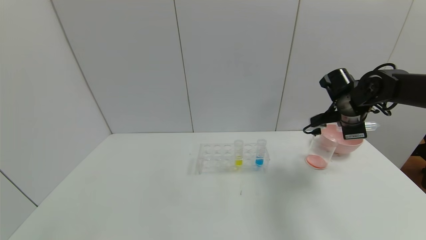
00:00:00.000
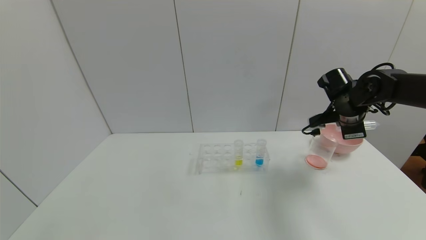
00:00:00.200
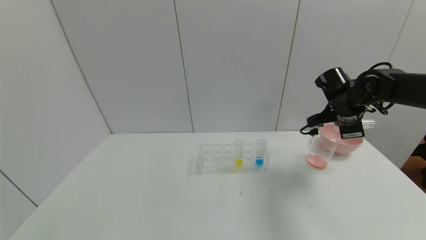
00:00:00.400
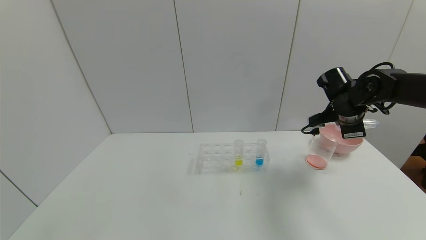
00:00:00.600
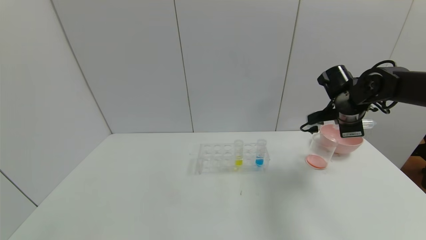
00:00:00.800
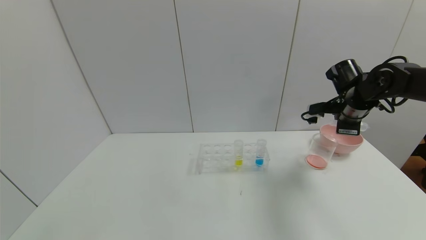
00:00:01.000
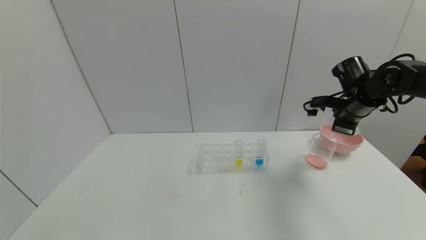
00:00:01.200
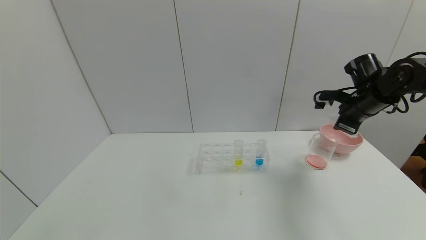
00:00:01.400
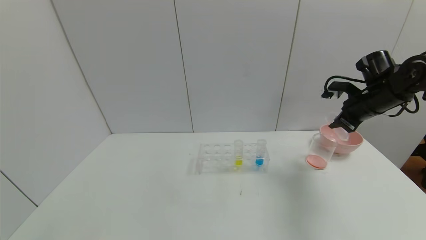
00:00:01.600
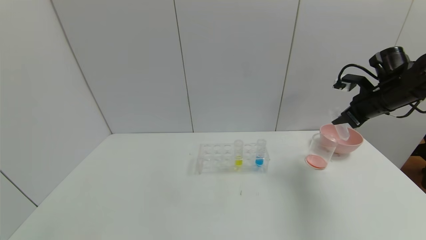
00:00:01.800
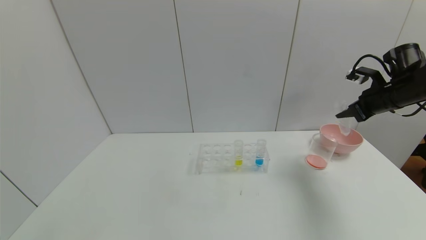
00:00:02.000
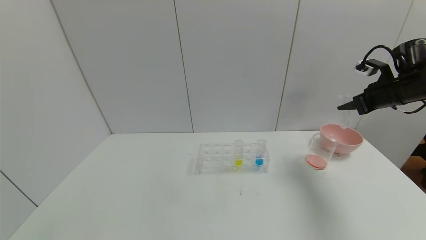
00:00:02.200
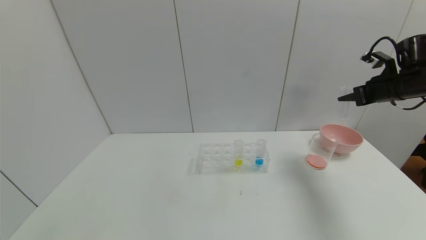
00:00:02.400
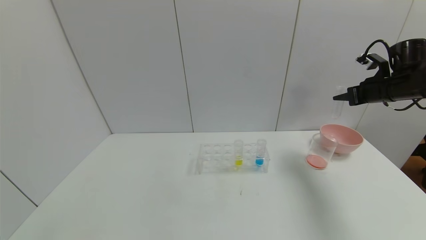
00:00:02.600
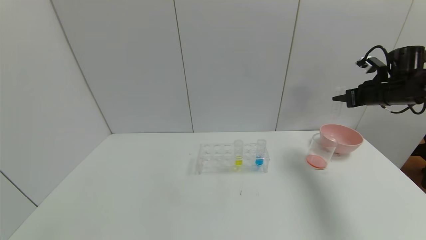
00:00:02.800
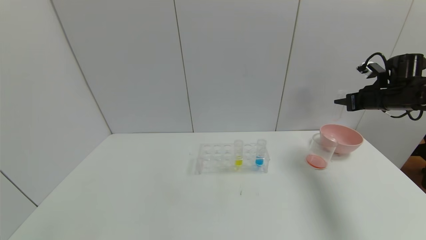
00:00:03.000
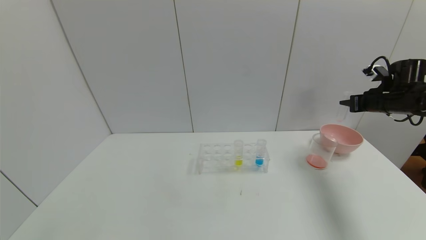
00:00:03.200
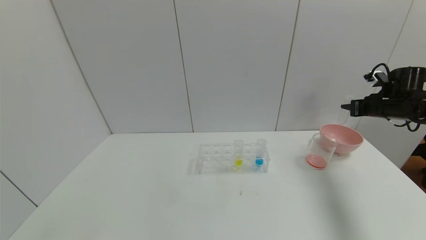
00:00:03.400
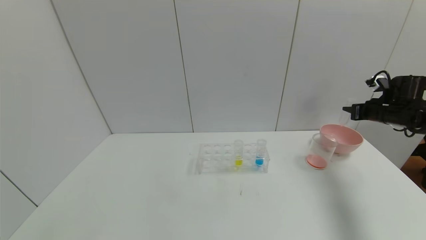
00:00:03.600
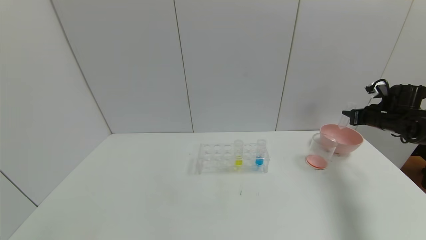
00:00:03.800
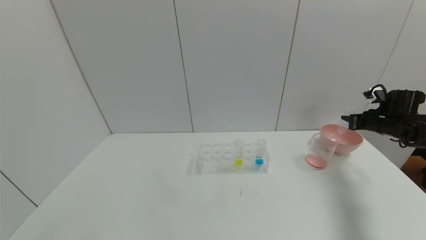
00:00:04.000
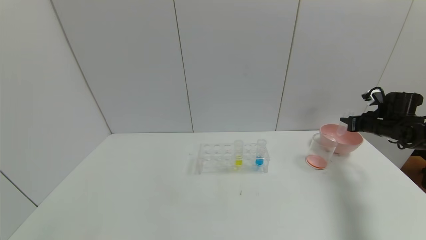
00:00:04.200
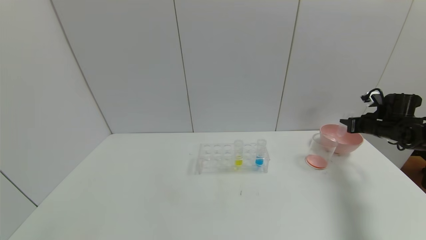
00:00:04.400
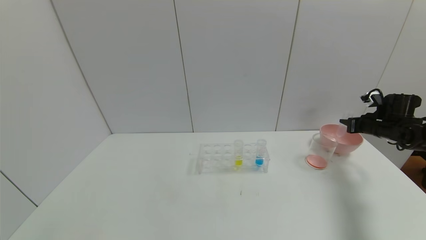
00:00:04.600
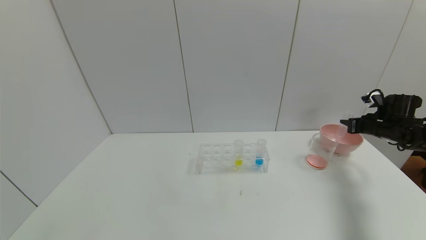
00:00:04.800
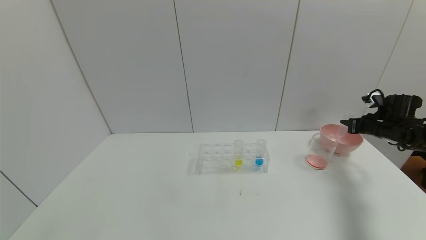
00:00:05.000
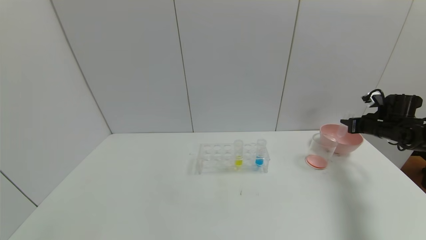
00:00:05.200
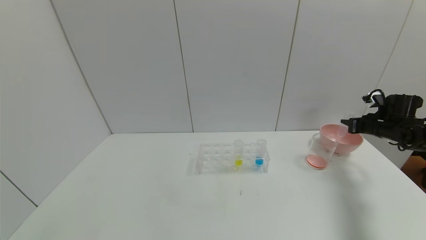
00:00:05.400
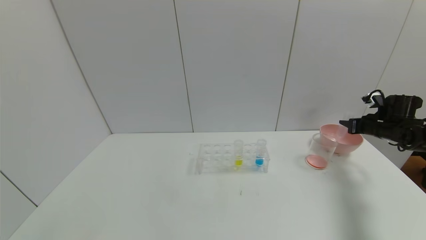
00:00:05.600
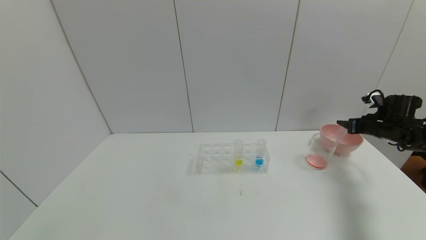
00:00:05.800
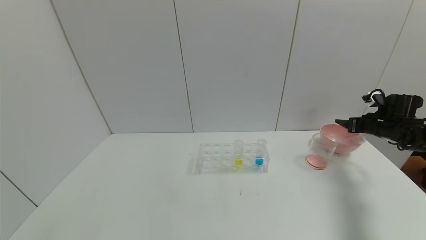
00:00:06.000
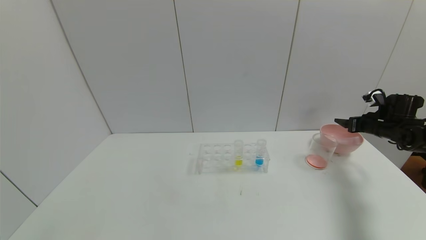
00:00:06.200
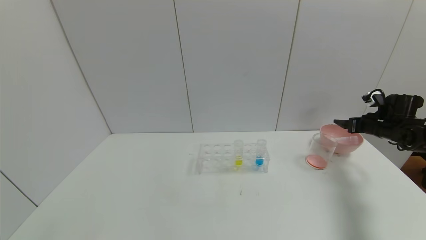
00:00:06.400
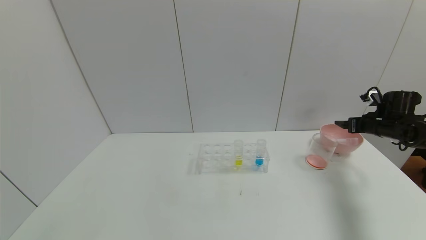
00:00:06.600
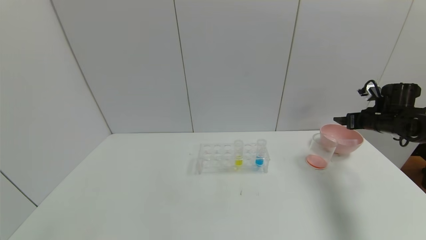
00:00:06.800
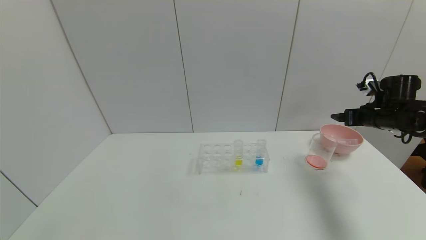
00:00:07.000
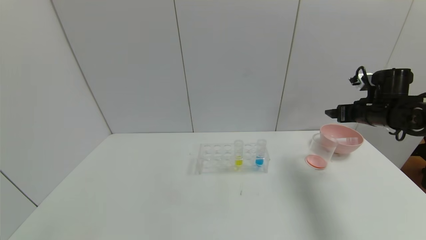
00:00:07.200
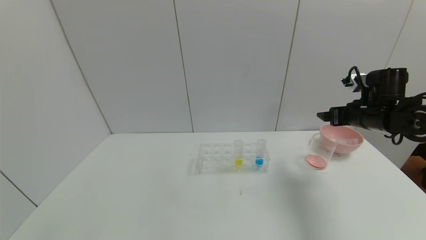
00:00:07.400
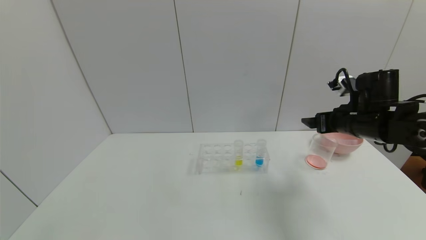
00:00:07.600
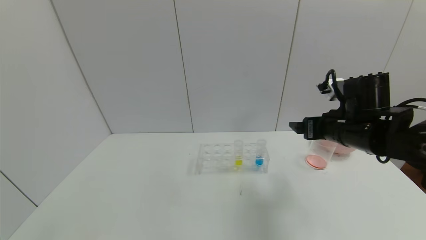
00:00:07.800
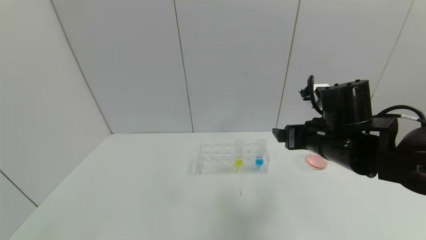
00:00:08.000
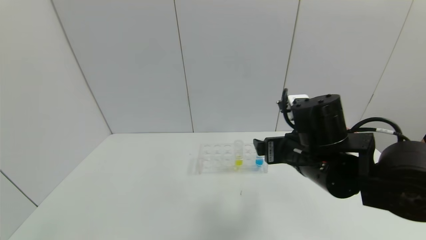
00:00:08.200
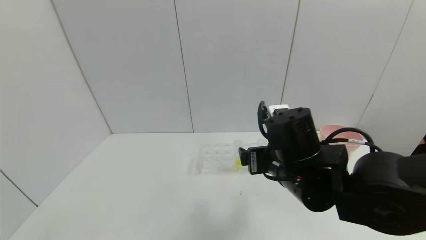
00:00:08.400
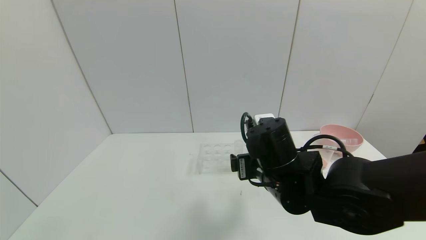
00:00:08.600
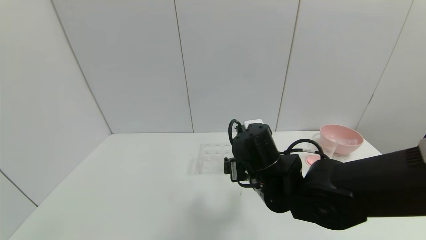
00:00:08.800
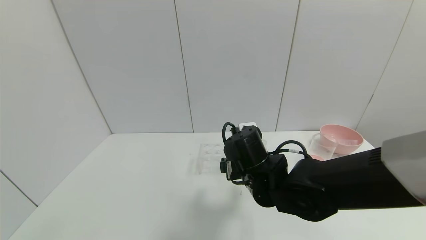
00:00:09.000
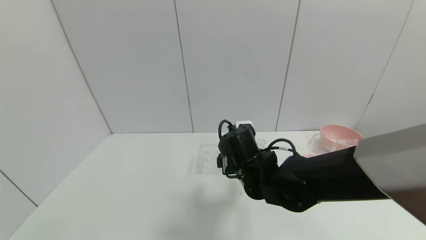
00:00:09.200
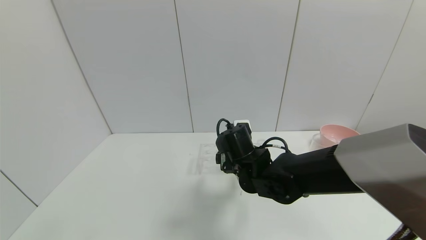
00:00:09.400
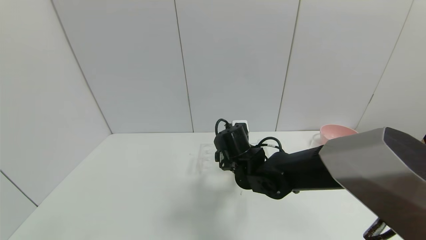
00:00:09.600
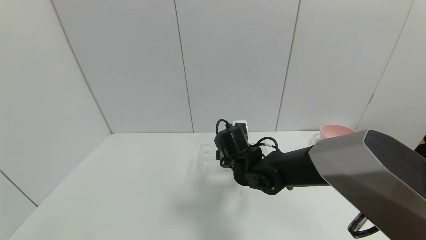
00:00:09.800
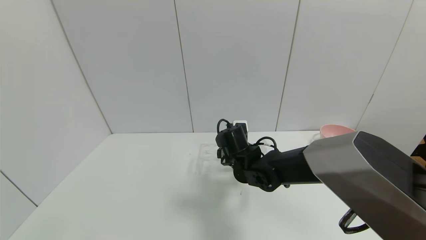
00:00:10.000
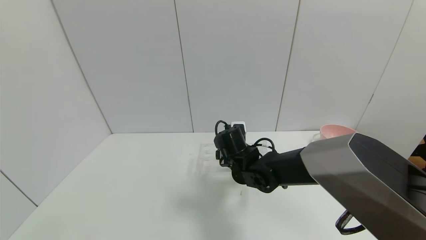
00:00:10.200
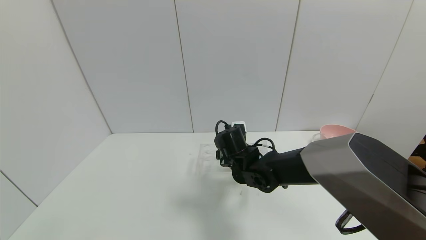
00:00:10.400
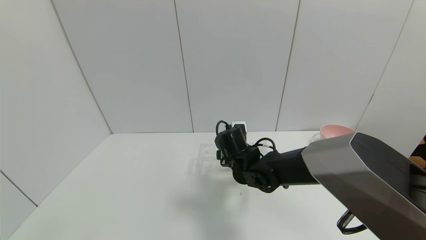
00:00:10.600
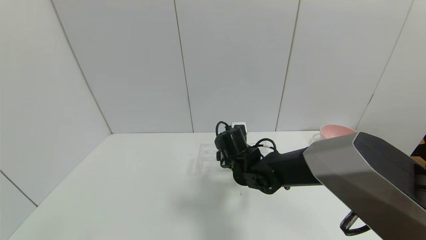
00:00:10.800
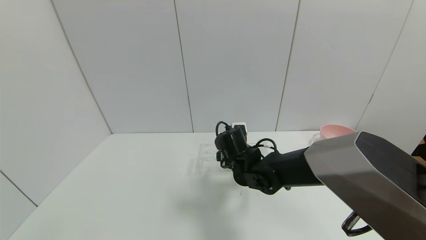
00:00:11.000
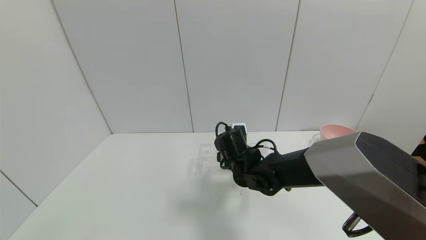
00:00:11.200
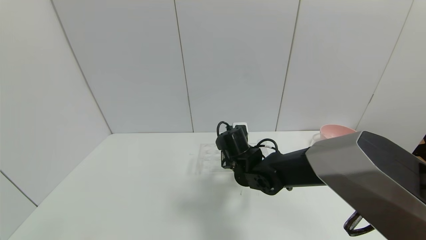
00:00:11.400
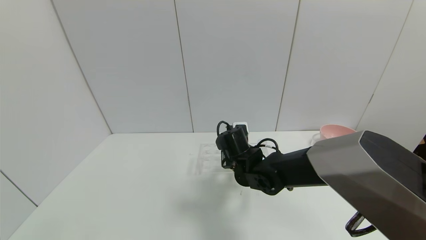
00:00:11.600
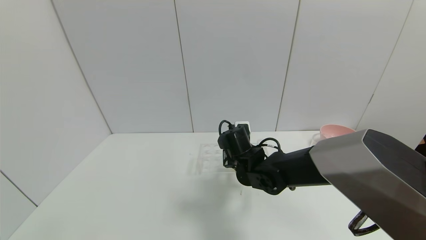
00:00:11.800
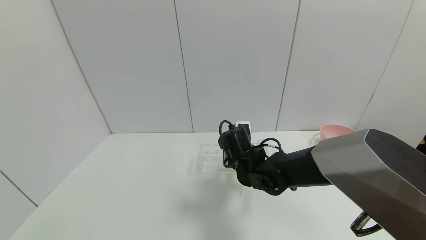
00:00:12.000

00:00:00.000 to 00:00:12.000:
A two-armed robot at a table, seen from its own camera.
Task of the whole recording: pick up the test tube with yellow pigment and the test tube with red pigment by grippers and pour them into the beaker.
Step, 00:00:00.000 to 00:00:06.400: Place the test tube into the bowl with the right gripper.
00:00:00.000 to 00:00:01.600: The right gripper changes place by roughly 5 cm.
00:00:01.600 to 00:00:03.000: The right gripper heads to the right, covering approximately 5 cm.
00:00:03.000 to 00:00:04.400: The right gripper goes roughly 10 cm downward.
00:00:06.000 to 00:00:07.600: The right gripper goes approximately 25 cm to the left, backward and upward.
00:00:07.600 to 00:00:09.000: The right gripper travels to the left by roughly 20 cm.
00:00:09.000 to 00:00:10.400: The right gripper moves forward, about 10 cm.
00:00:10.400 to 00:00:12.000: The right gripper closes its fingers.

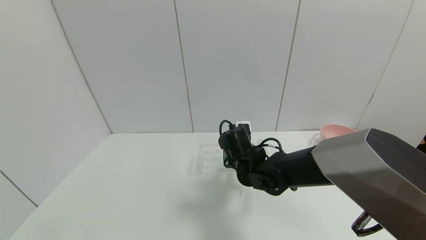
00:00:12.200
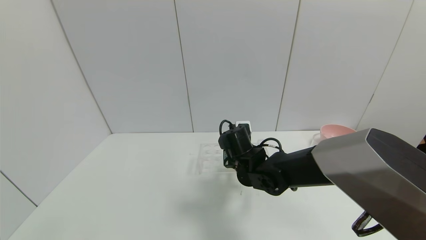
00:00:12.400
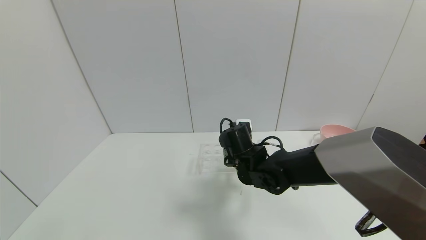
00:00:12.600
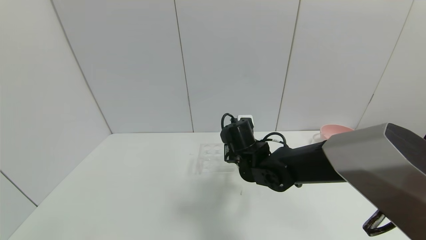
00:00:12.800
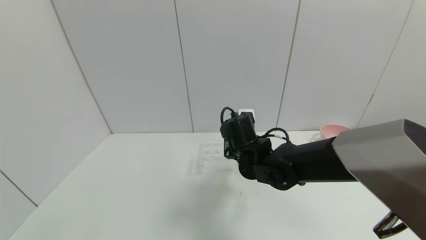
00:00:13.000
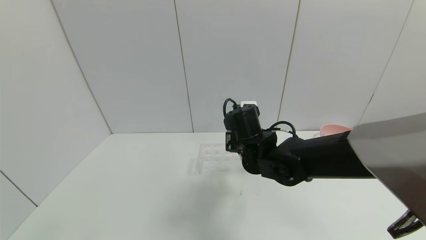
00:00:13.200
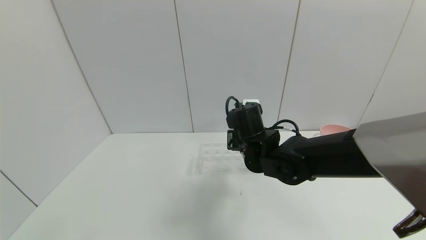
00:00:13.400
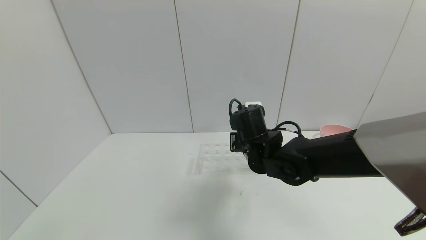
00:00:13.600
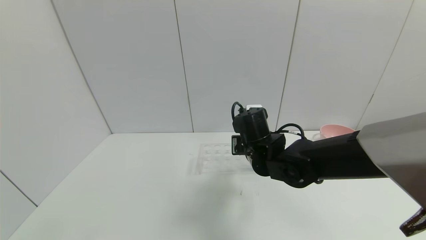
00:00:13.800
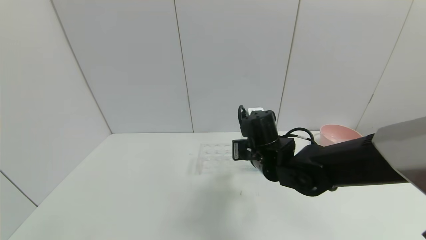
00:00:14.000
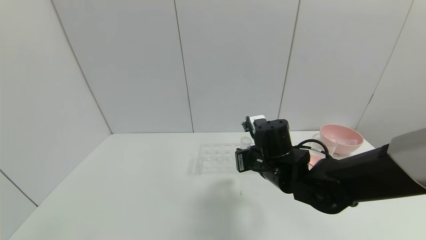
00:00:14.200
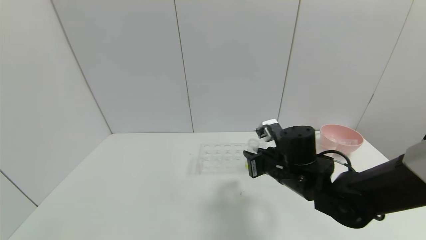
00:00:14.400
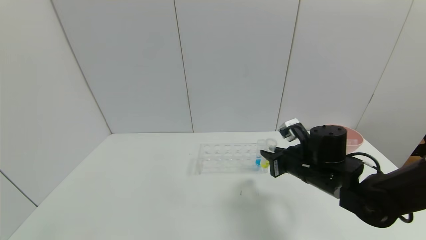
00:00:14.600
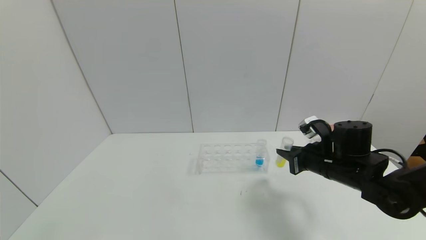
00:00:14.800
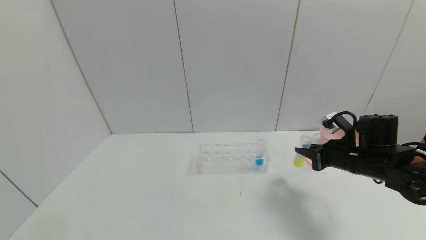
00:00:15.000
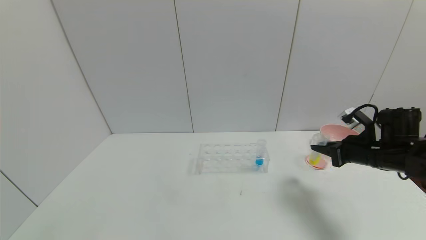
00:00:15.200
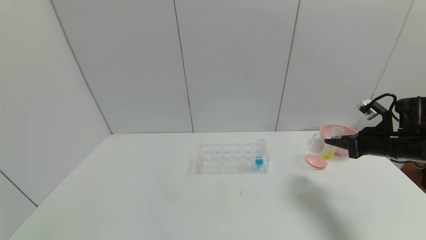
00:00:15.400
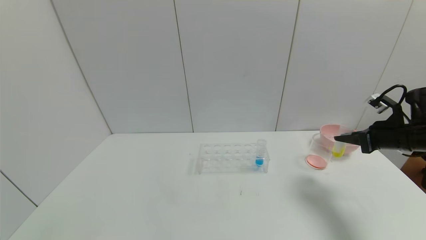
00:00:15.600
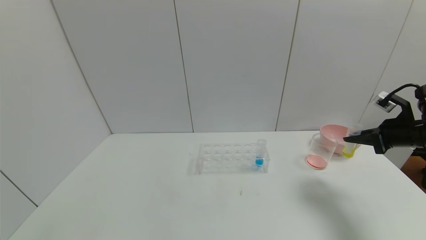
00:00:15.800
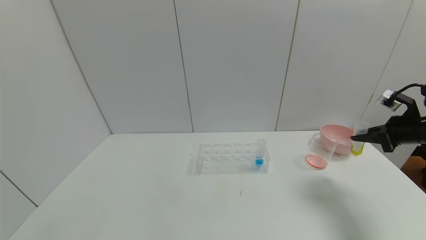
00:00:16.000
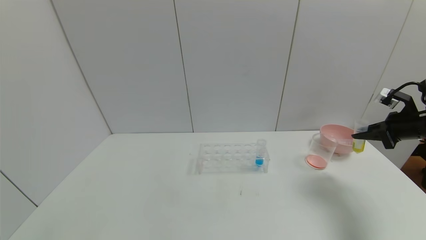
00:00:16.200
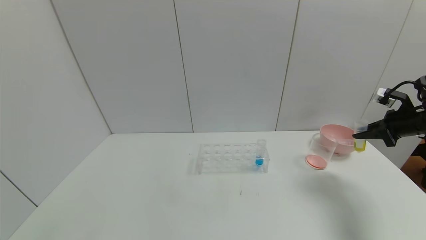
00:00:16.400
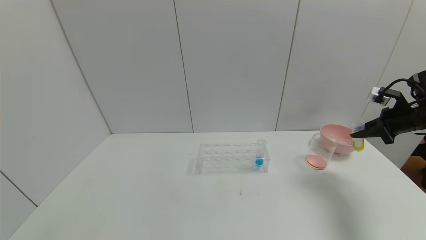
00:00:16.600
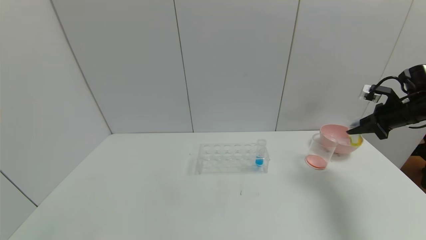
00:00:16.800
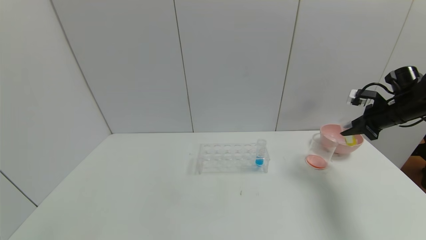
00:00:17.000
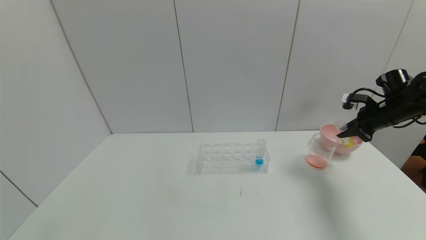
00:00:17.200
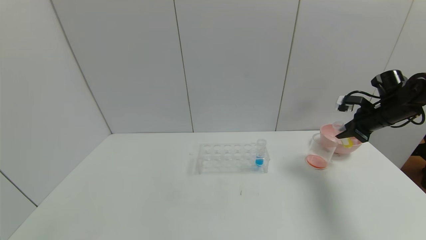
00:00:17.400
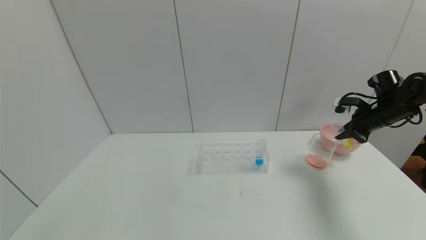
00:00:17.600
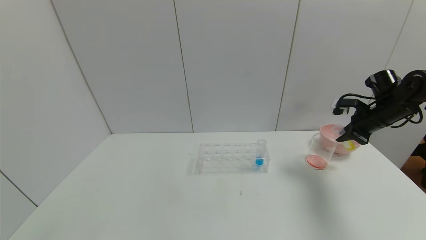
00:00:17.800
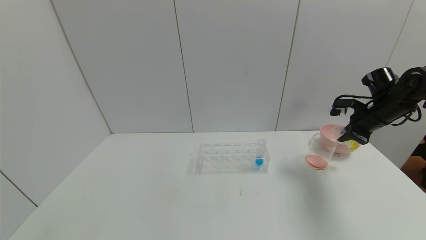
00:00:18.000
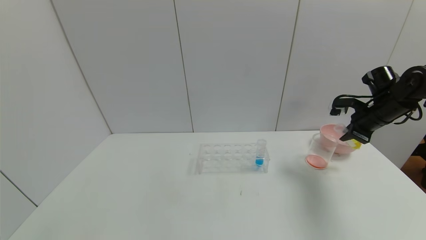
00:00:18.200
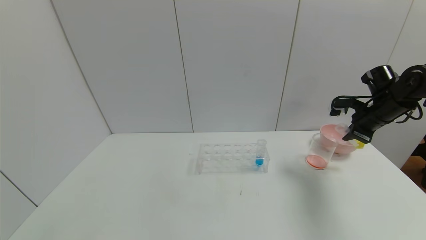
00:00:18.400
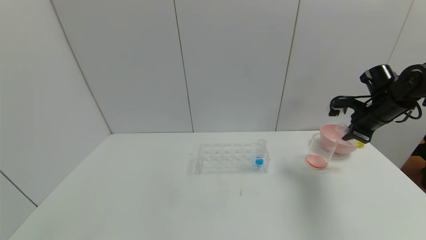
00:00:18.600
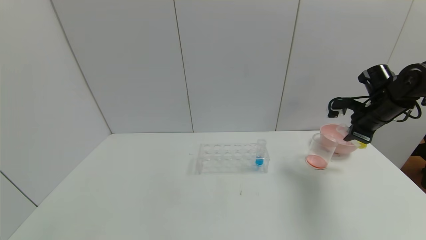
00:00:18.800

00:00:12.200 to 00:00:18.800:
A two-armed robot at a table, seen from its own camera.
Task of the whole recording: pick up the test tube with yellow pigment and the test tube with red pigment by grippers and pour them into the beaker.
00:00:12.200 to 00:00:13.800: The right gripper ends up about 5 cm from where it was.
00:00:13.800 to 00:00:15.400: The right gripper heads to the right, covering roughly 30 cm.
00:00:15.400 to 00:00:17.200: The right gripper shifts approximately 10 cm forward.
00:00:17.200 to 00:00:18.800: The right gripper changes place by about 5 cm.
